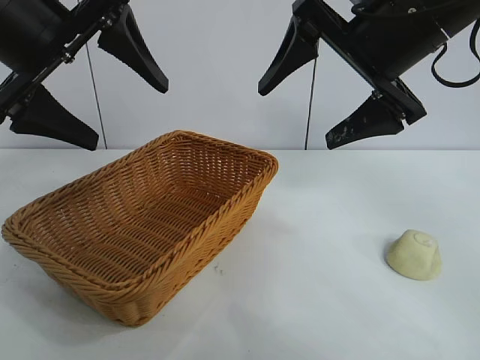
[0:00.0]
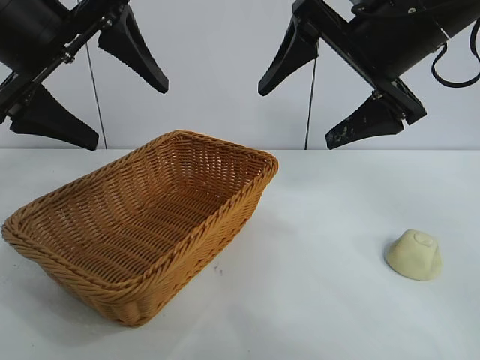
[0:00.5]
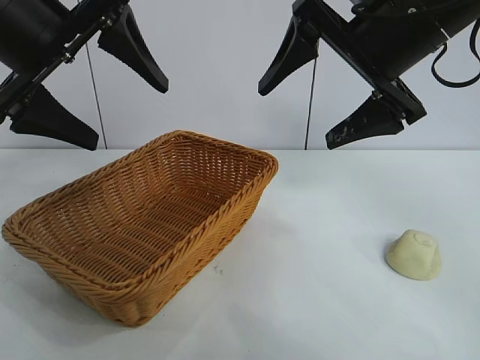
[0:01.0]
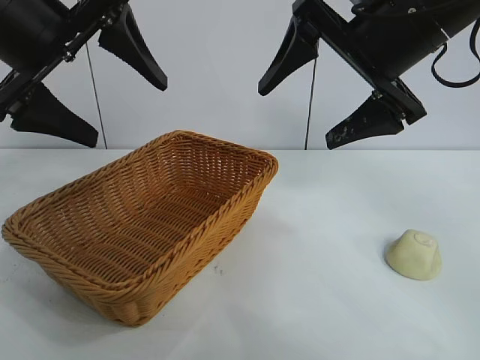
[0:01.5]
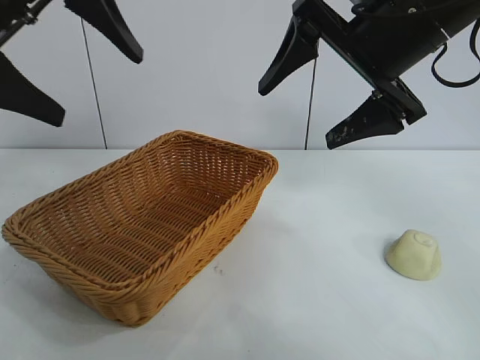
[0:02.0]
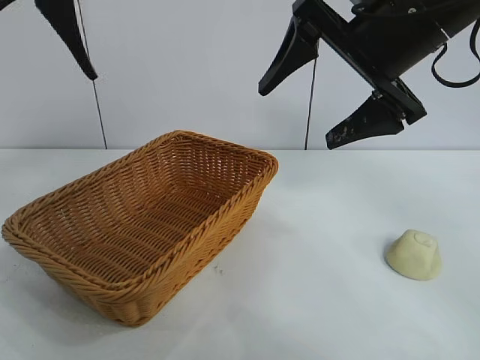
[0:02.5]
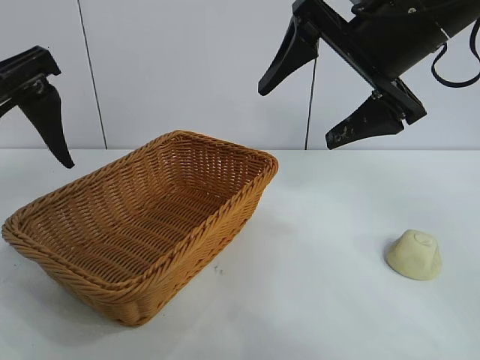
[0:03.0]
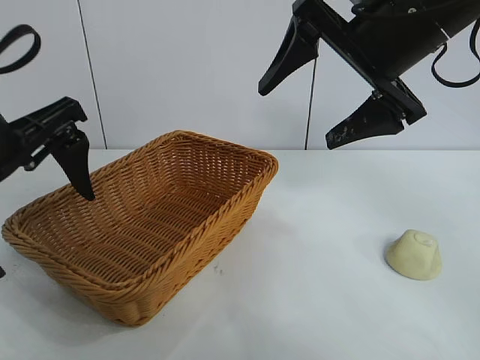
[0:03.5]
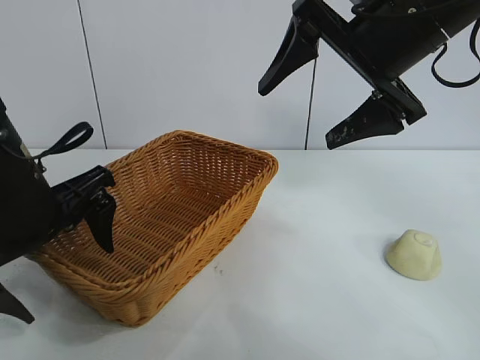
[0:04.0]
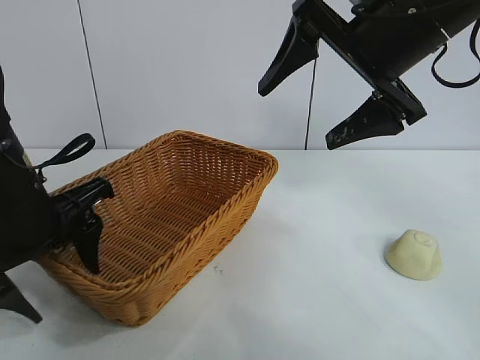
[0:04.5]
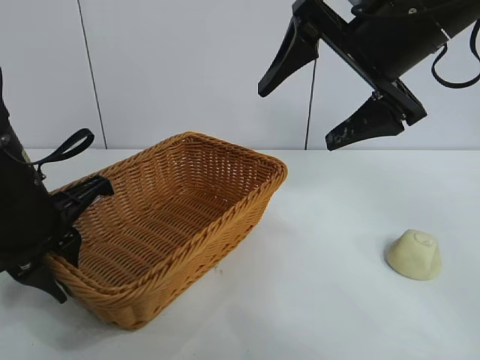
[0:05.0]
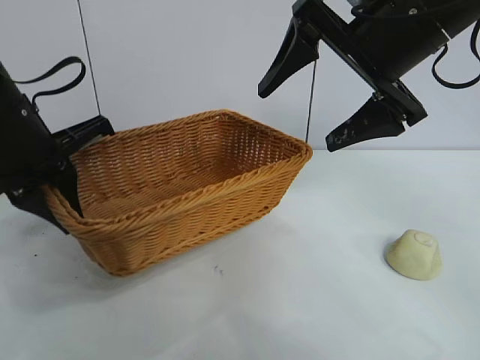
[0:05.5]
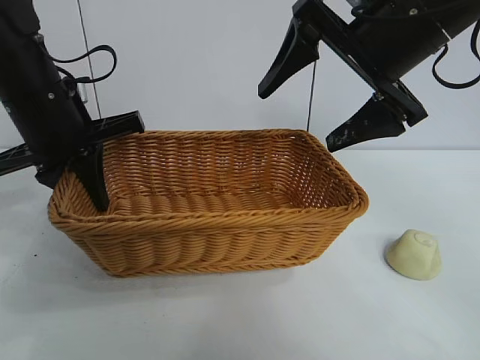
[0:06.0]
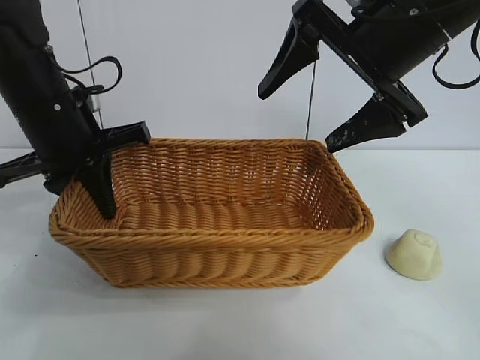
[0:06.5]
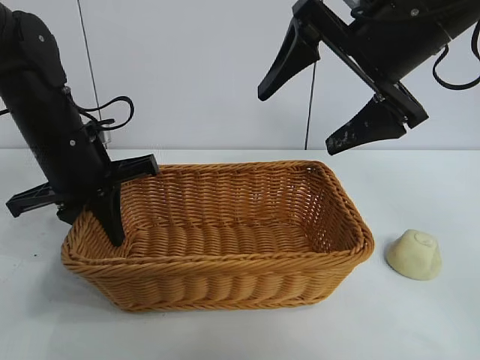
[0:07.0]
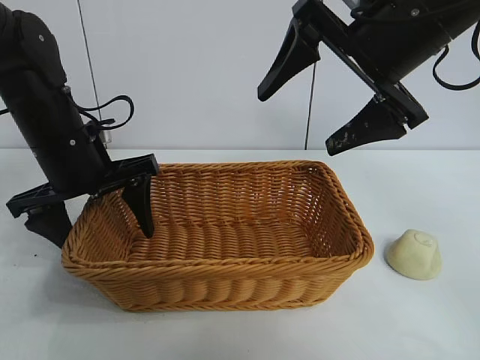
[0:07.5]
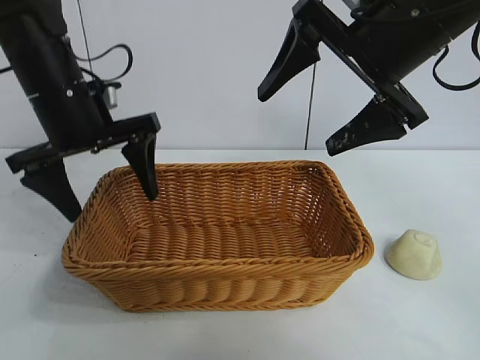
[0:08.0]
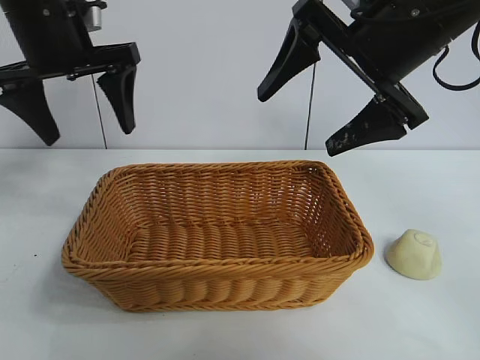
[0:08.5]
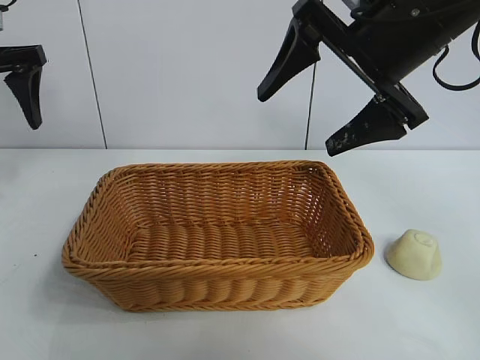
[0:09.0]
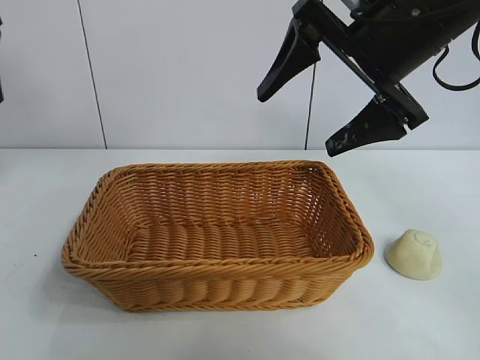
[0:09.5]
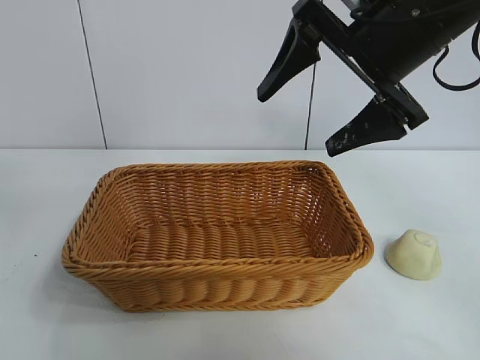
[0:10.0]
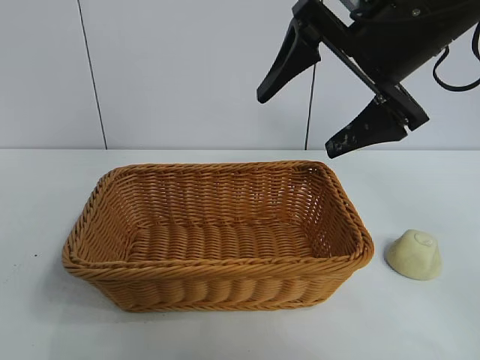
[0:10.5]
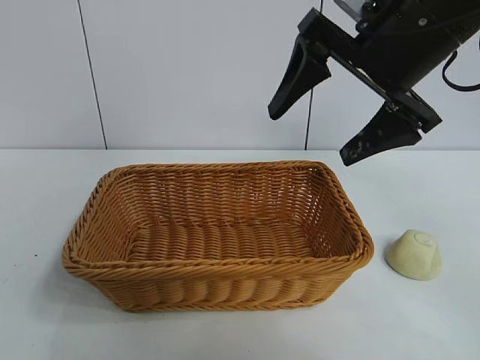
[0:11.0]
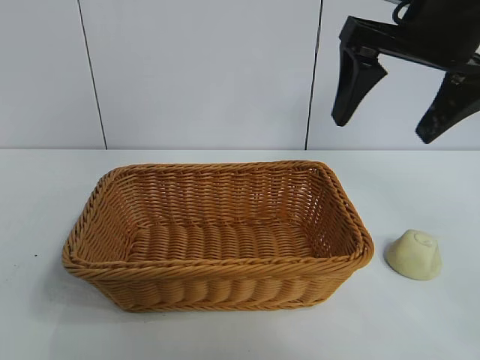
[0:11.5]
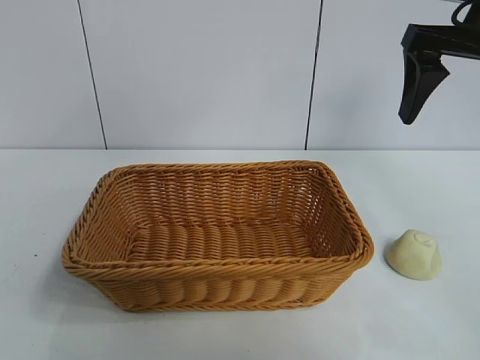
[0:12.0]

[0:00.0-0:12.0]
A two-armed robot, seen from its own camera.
Task of the whole recording: pick up the egg yolk pastry and put it into the basket.
Step, 0:01.5 to 0:04.5: Grasp the basket with left gripper.
Step, 0:05.0 to 0:07.0: Place the basket in the center of view with left gripper.

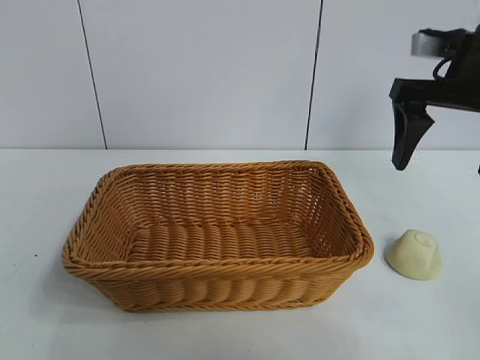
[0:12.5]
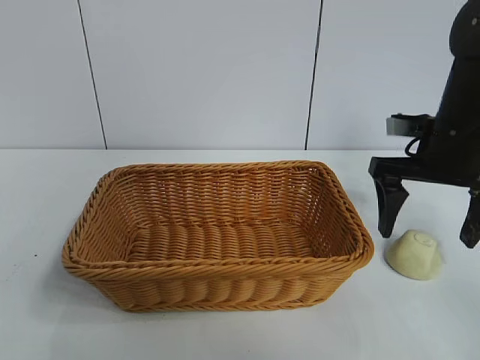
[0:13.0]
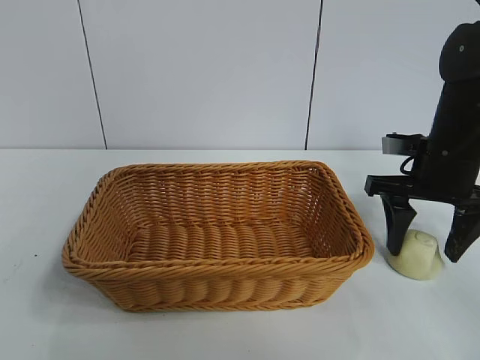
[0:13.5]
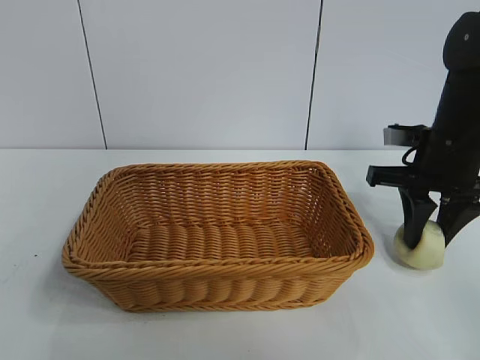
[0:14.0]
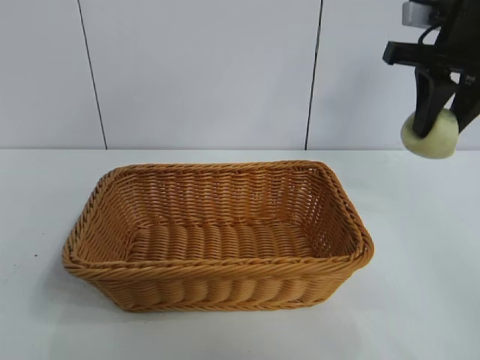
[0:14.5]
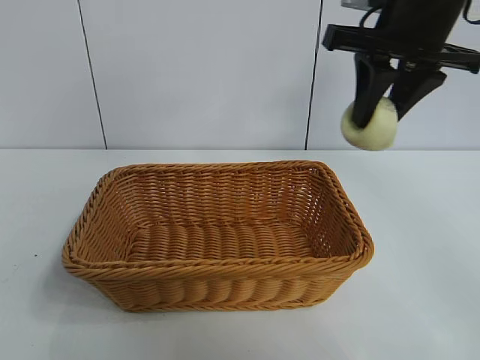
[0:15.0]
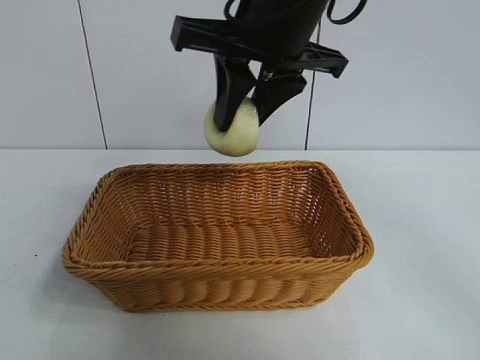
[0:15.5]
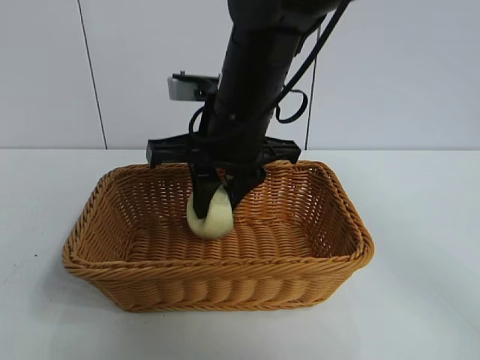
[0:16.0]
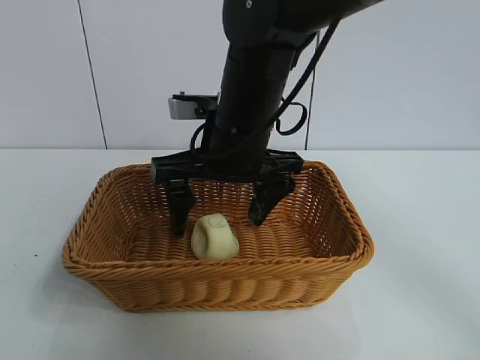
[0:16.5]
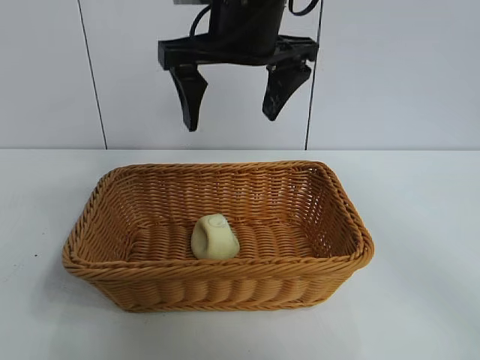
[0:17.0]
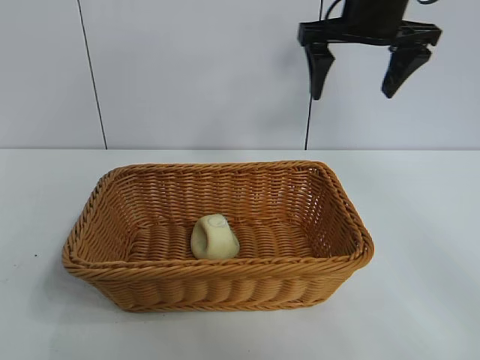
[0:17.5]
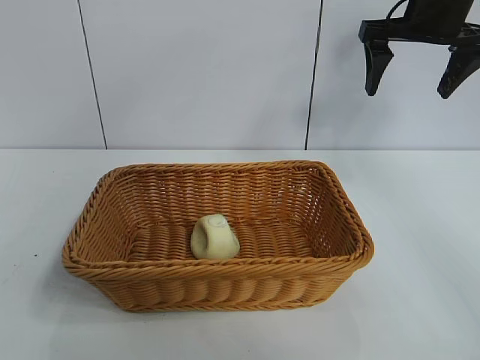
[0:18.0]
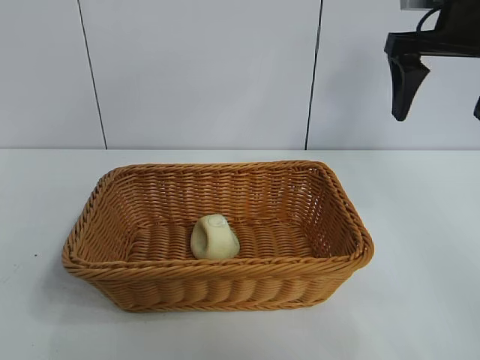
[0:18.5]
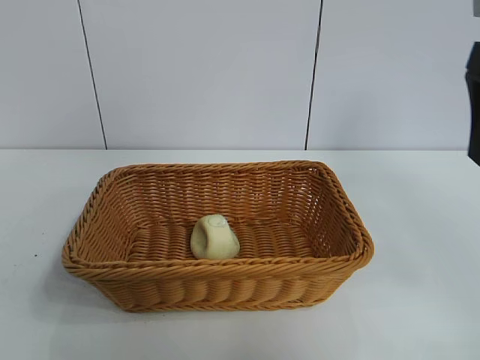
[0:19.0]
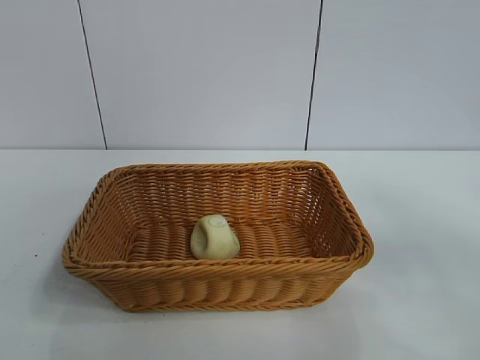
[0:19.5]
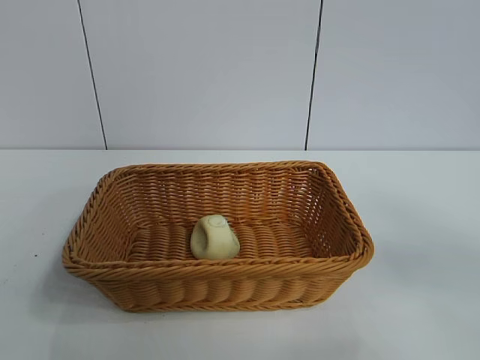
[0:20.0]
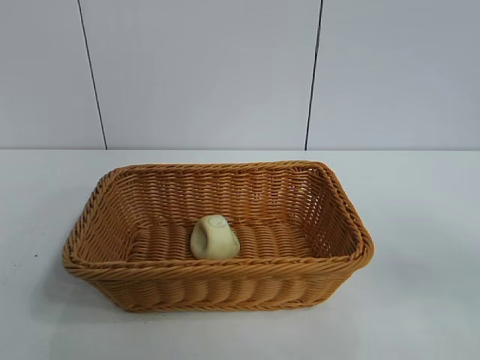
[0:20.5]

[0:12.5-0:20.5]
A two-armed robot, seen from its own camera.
Task of the whole recording: pick up the egg yolk pastry and put it into the basket.
Step, 0:14.0 to 0:16.0: Place the egg yolk pastry in the basket with right gripper.

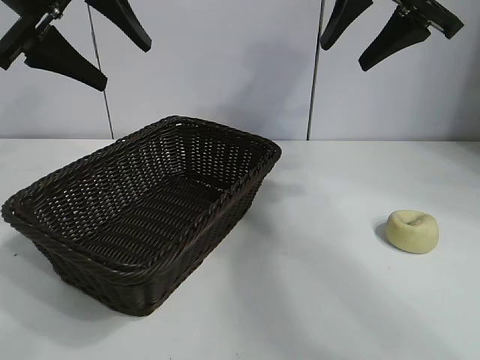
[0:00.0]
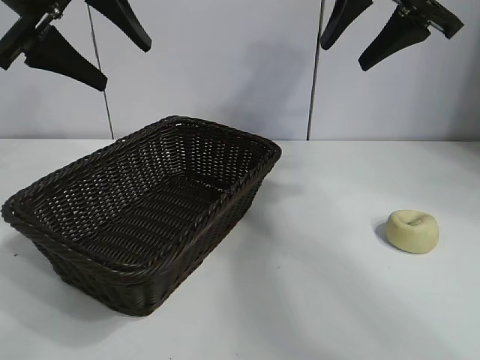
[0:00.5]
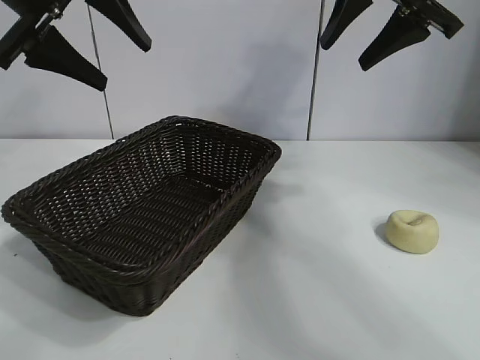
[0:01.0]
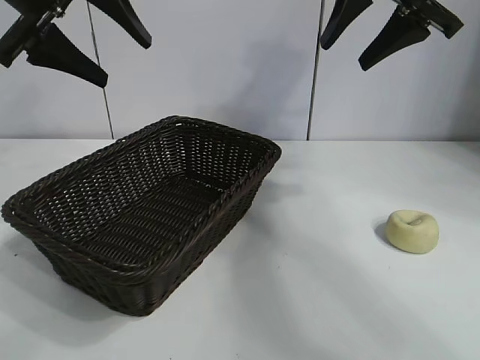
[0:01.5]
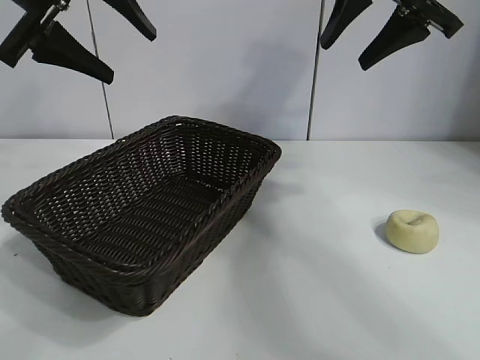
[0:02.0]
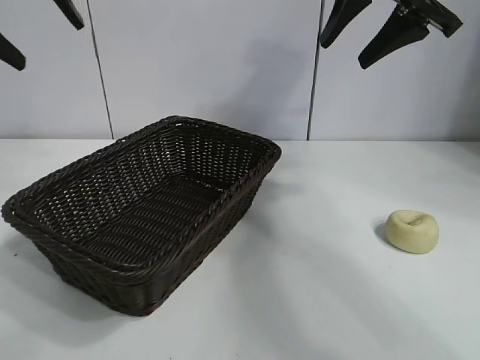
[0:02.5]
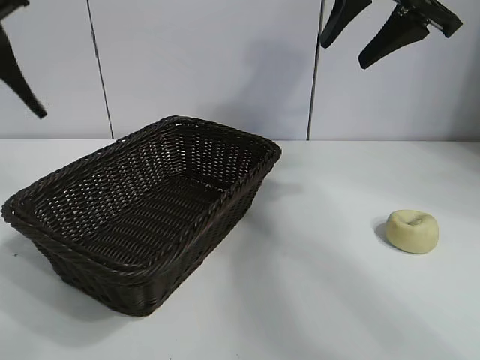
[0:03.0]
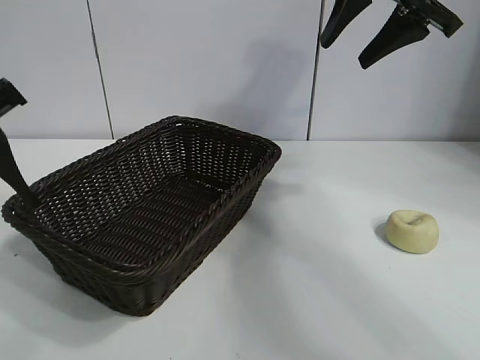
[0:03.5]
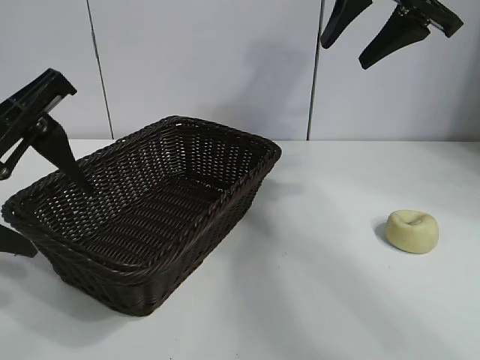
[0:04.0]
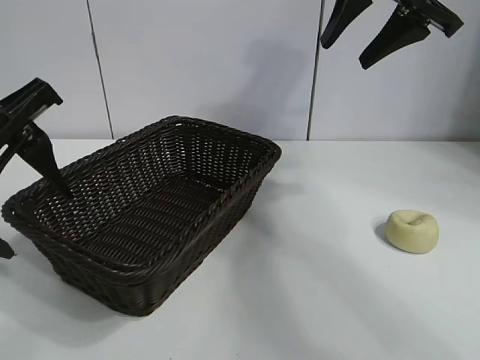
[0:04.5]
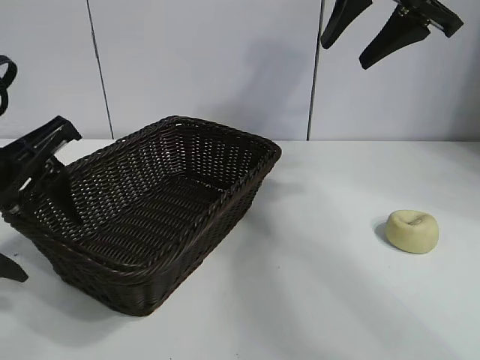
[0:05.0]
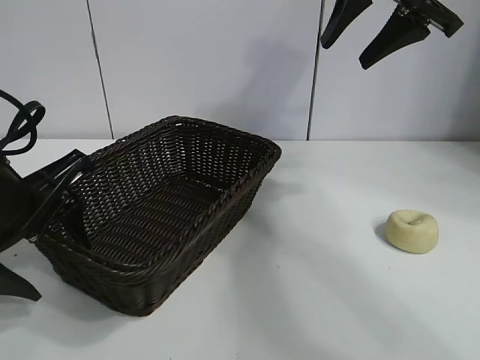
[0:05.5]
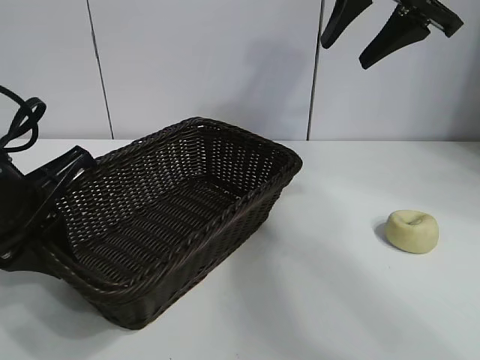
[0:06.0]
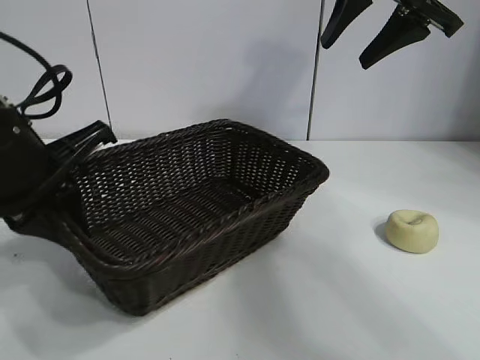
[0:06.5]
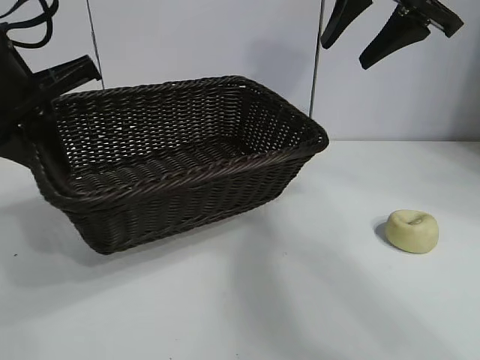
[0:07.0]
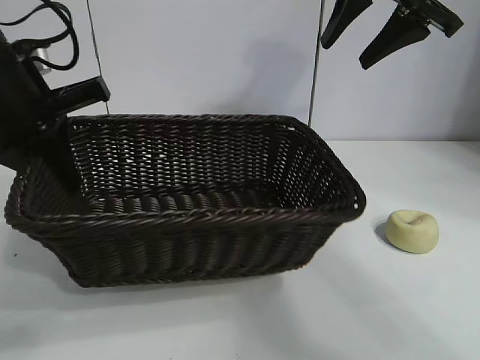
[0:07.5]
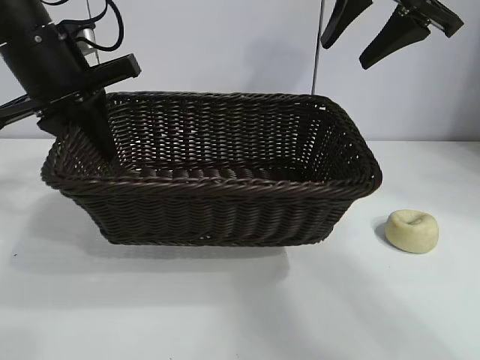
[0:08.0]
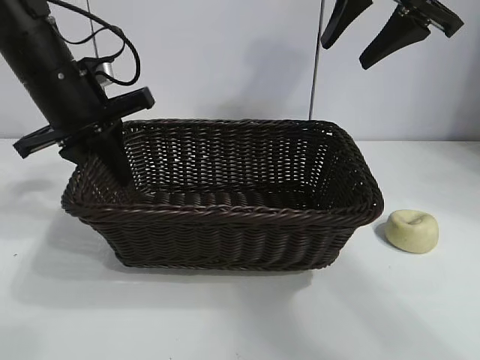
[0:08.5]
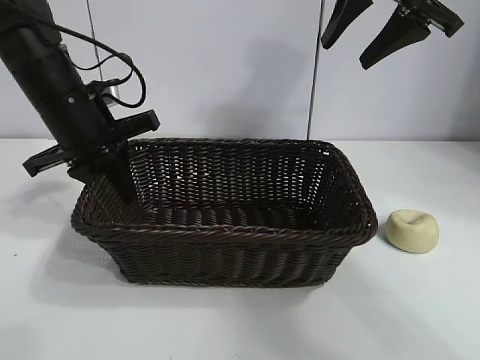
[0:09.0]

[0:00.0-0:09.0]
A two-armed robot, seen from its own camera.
Task of the whole recording: pick up the egg yolk pastry and put it into the basket.
Step, 0:01.5 to 0:05.5: Grasp the basket with left gripper.
